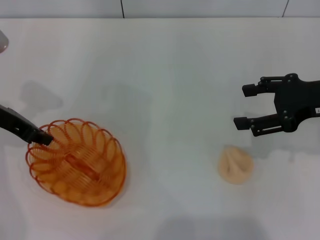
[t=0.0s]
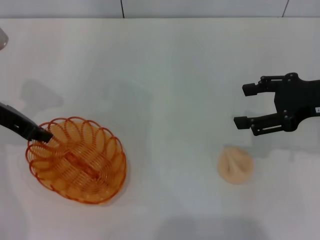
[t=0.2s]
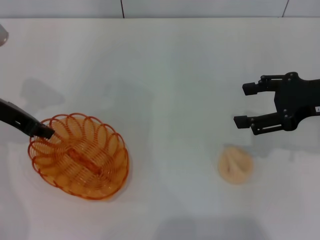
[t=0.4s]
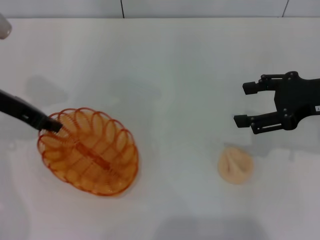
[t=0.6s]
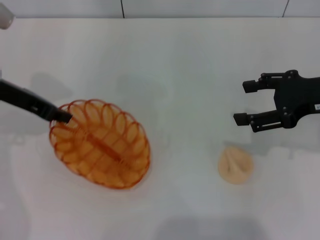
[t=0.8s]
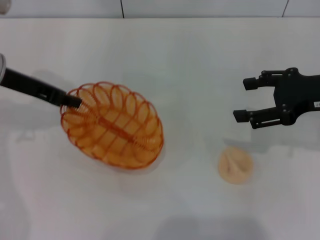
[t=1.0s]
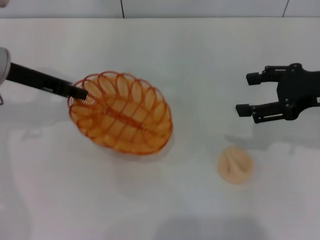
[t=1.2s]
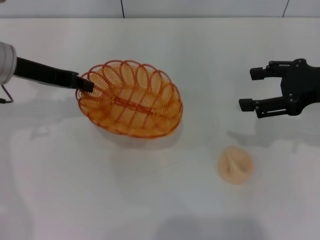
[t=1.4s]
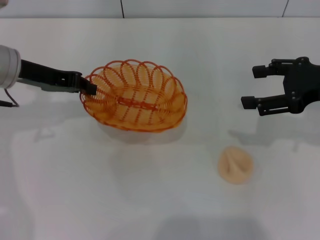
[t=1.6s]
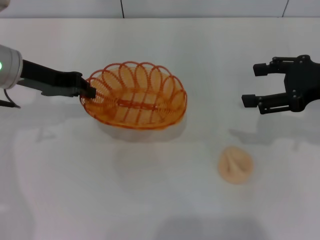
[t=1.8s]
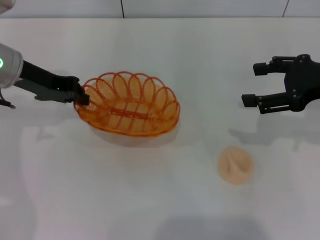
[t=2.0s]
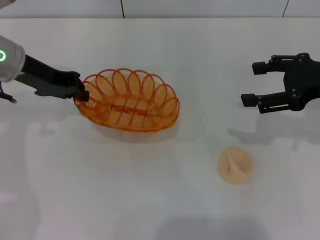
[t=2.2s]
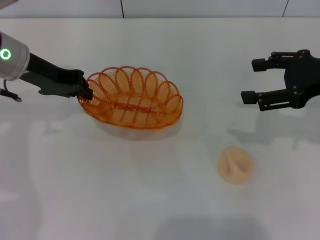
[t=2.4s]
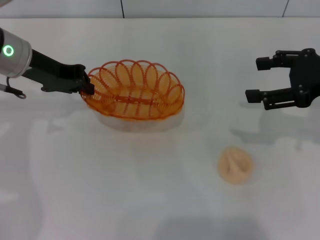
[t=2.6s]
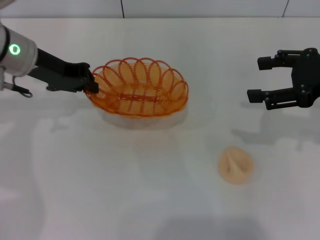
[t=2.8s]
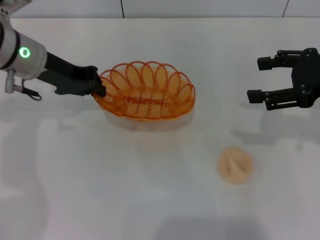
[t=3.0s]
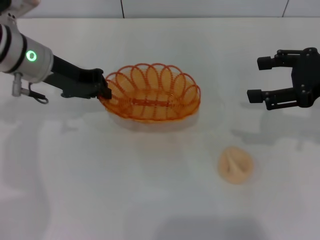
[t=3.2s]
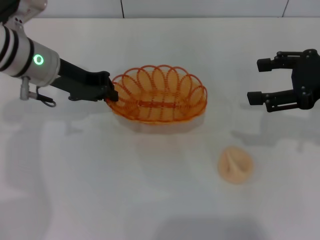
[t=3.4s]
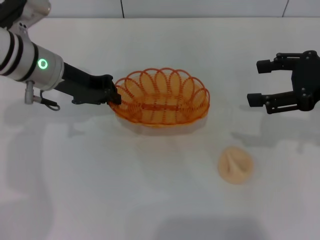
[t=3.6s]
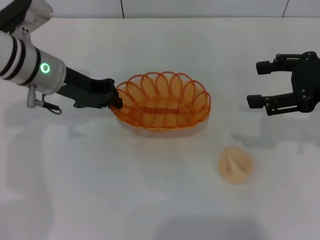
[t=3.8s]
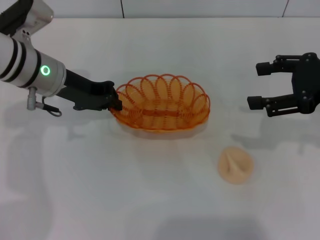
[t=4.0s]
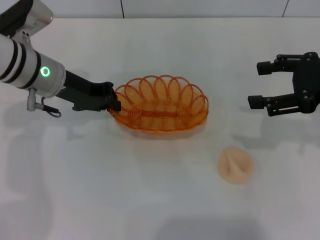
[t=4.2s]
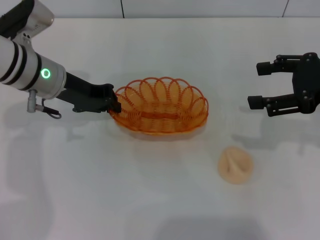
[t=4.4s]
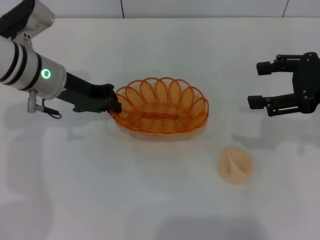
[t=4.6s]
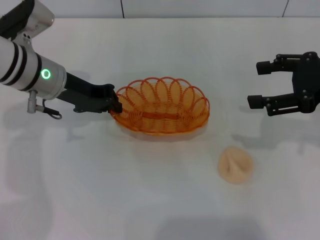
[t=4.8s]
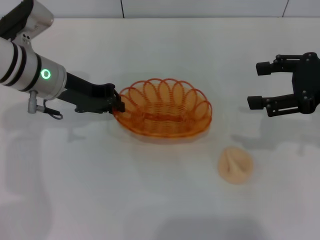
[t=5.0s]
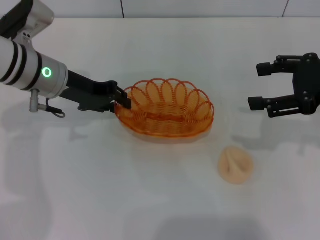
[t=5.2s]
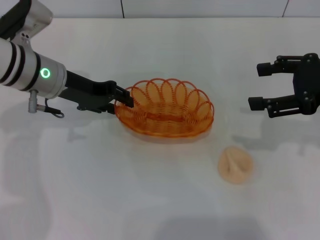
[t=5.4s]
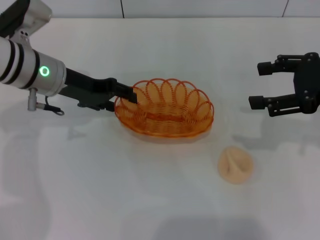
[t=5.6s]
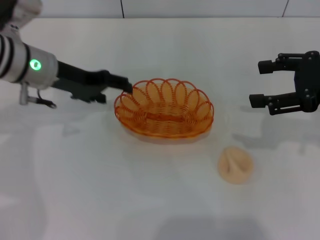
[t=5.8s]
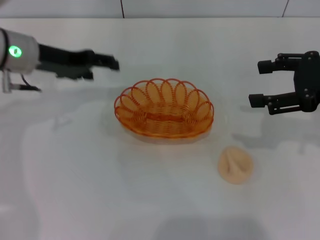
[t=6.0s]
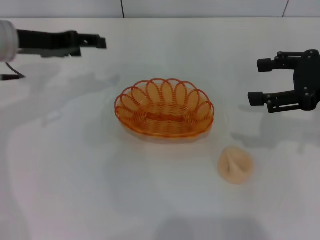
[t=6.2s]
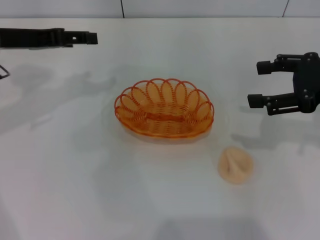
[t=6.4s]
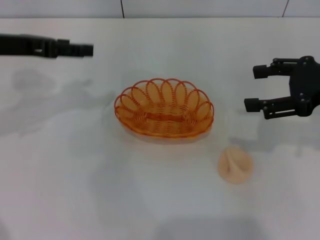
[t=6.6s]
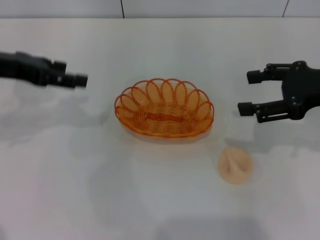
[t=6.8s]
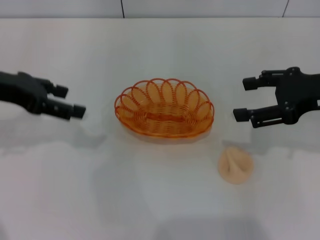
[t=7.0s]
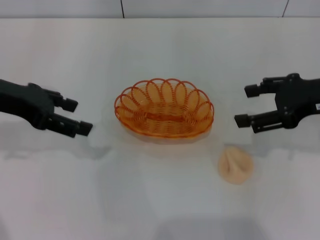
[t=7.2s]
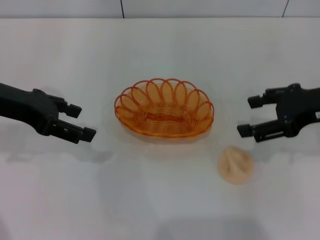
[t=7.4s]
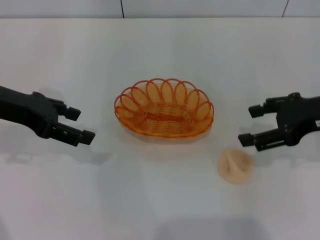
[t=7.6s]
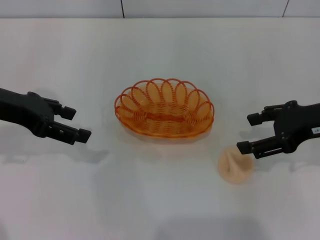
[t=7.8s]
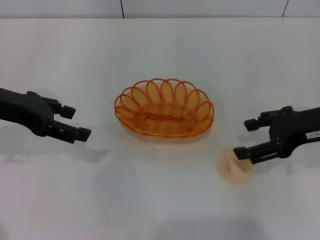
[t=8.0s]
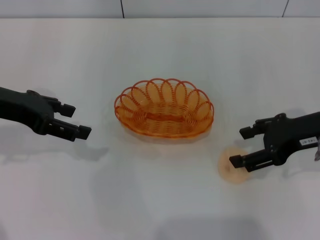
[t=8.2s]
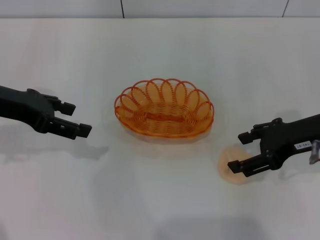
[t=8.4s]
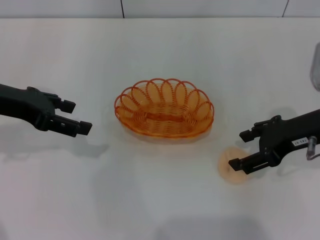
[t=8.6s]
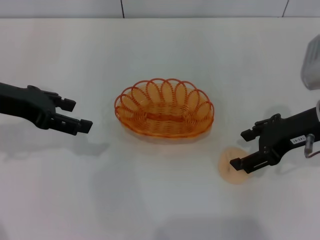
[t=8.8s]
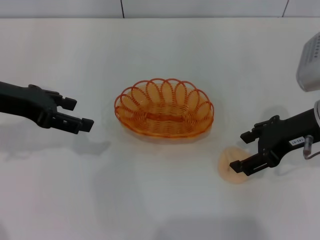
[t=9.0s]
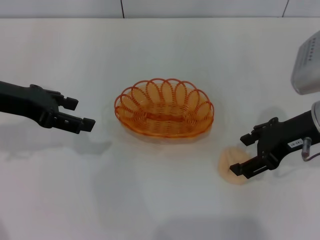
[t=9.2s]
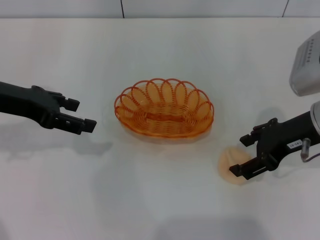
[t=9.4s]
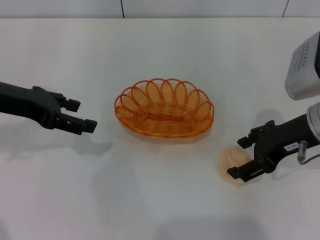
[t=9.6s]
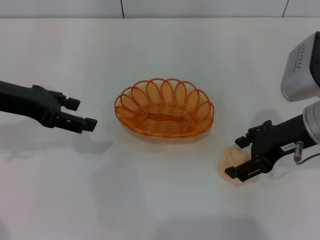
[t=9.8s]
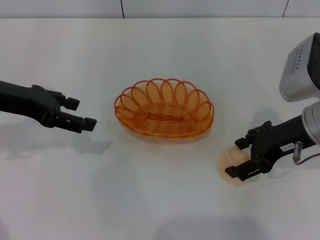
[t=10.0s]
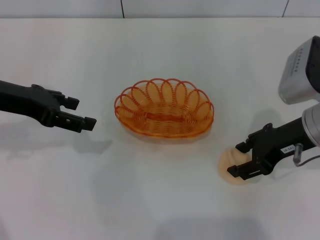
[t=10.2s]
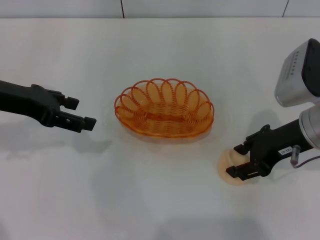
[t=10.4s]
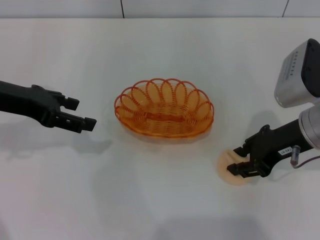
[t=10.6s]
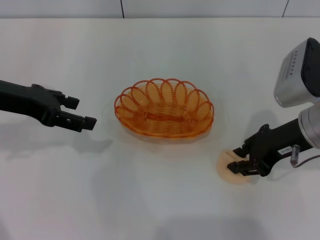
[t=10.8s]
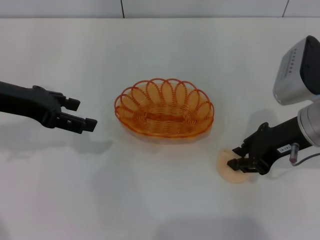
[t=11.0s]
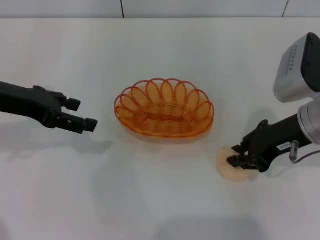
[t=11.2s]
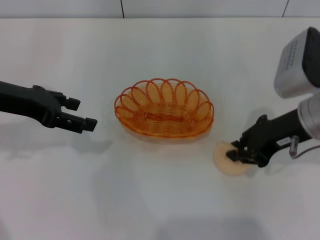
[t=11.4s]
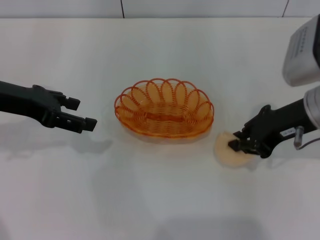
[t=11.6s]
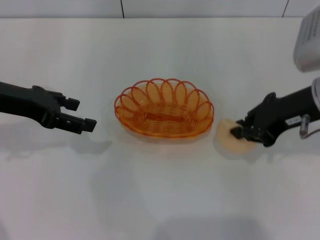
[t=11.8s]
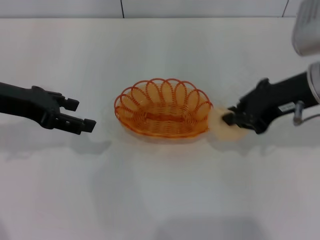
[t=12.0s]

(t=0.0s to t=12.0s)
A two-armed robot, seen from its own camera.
Step, t=1.0s - t=5.8s: Place the basket in the center of view with the left gripper.
Step, t=6.0s - t=11.8s: Pick up the egg yolk pastry with the right gripper.
t=1.6s - t=3.0s: The grippers make only small movements.
t=3.0s - t=4.4s: There are only small adjustments of the grippers.
t=4.4s - t=6.0s: The left gripper opens up.
t=6.0s - t=7.6s: The left gripper shifts about 5 cm backward.
t=7.6s - t=9.0s: The grippers stay close to where they were, moving slightly.
t=9.0s - t=10.4s: The grippers move only a little.
t=10.4s - t=12.0s: The right gripper shifts approximately 5 cm upward, and closes its fingers.

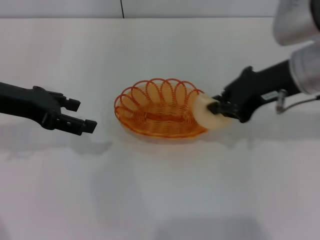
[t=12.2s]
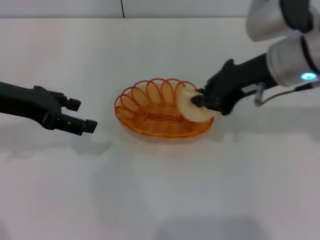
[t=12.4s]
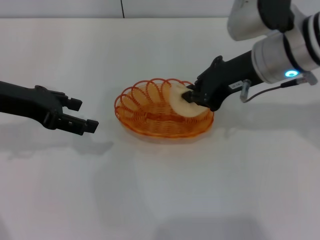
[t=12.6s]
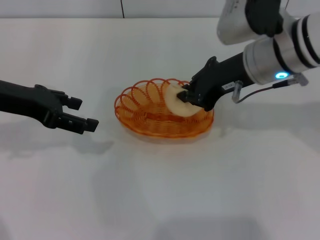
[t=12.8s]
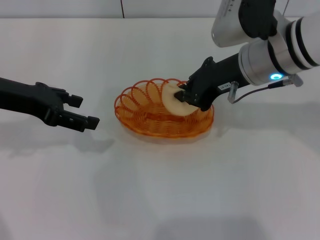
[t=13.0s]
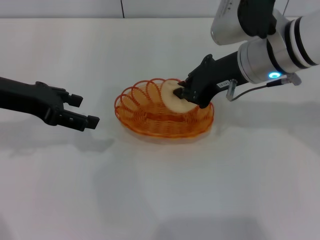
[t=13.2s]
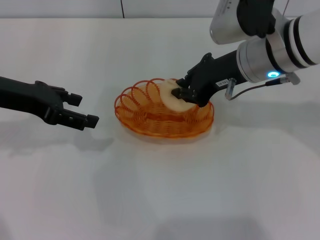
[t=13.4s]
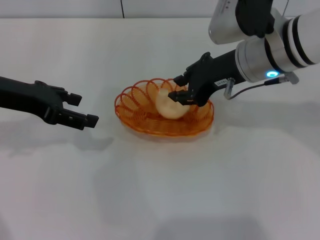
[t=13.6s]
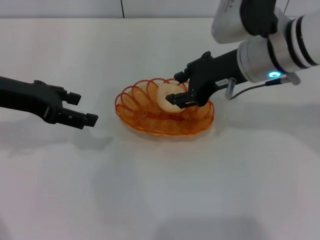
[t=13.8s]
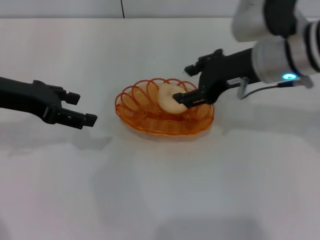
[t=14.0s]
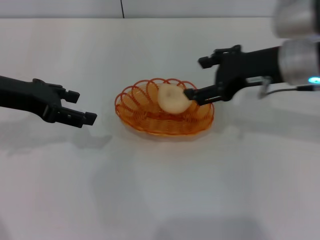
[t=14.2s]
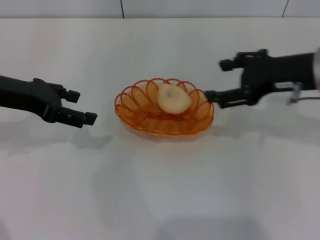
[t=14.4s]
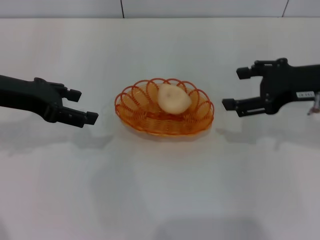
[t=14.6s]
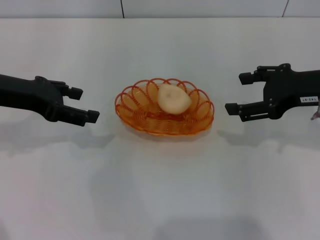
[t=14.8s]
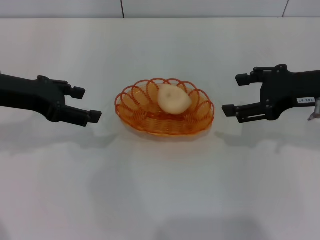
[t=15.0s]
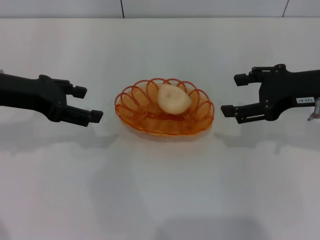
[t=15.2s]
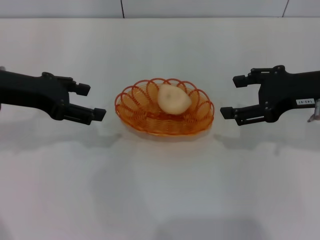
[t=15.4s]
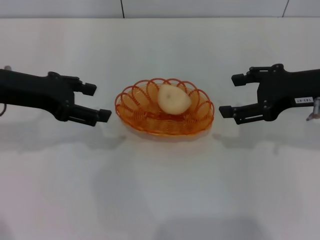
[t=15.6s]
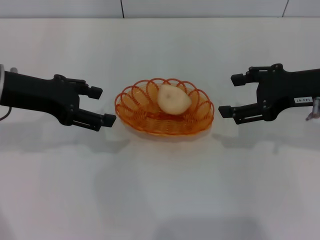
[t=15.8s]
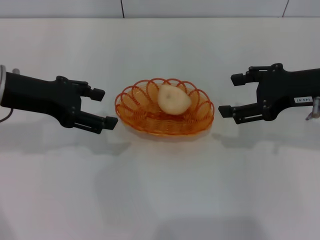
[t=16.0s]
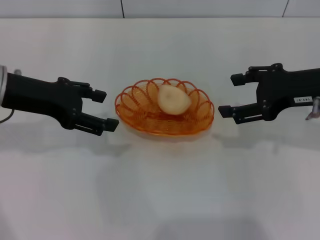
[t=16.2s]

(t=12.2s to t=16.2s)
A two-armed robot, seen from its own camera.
Step, t=12.2s - t=14.2s: Place the egg yolk pastry into the basket with the right gripper.
t=12.2s - t=13.6s: The right gripper is displaced to the left by about 5 cm.
t=13.6s - t=14.8s: The right gripper moves to the right, some 10 cm, and opens up.
t=14.8s - t=16.2s: The grippers move only a little.
